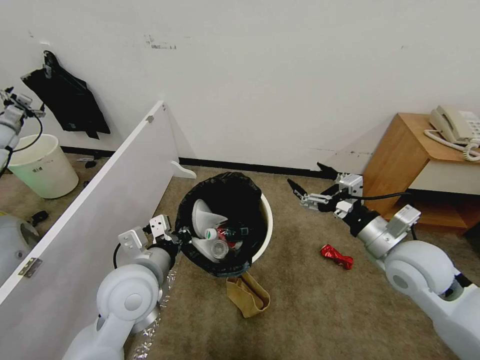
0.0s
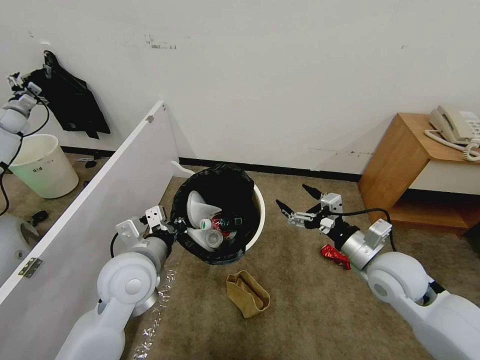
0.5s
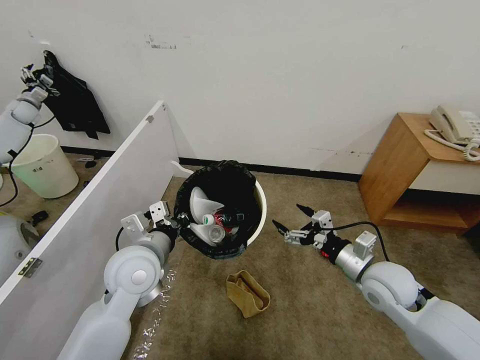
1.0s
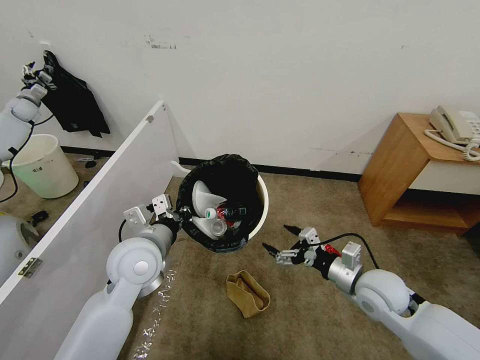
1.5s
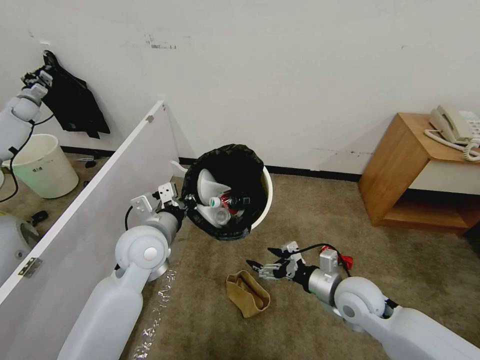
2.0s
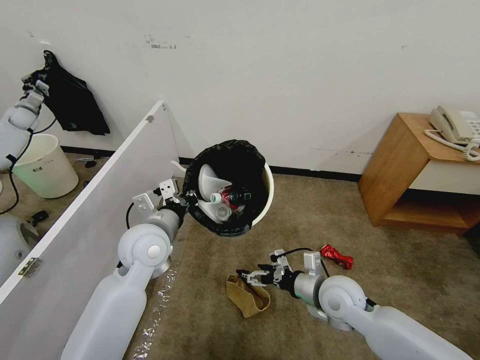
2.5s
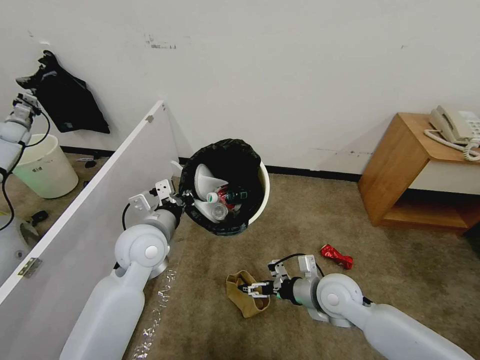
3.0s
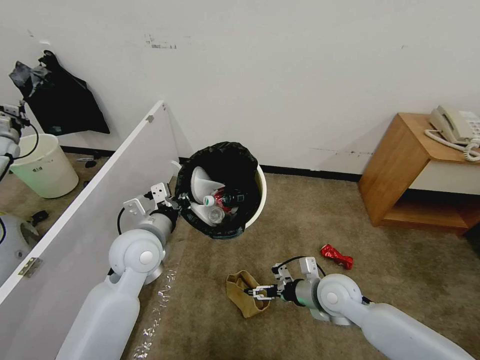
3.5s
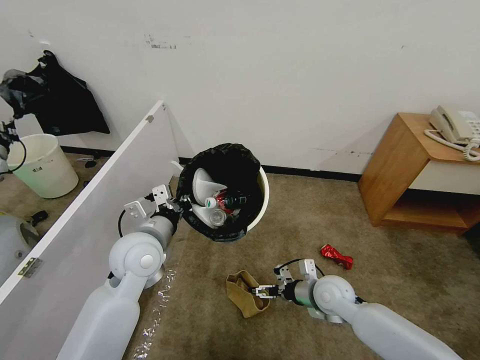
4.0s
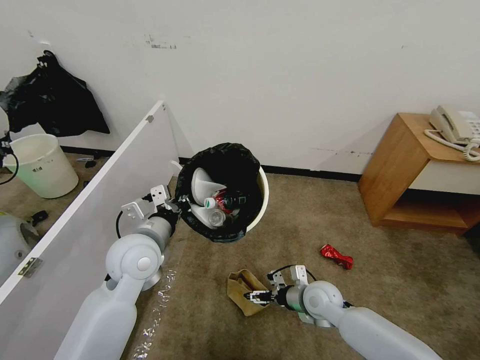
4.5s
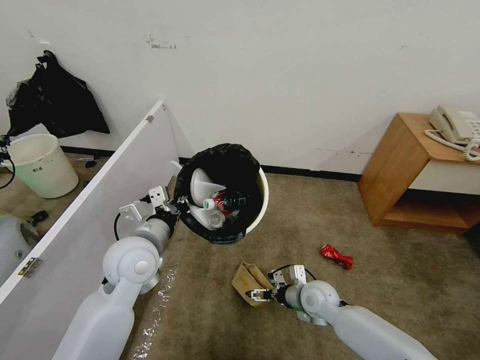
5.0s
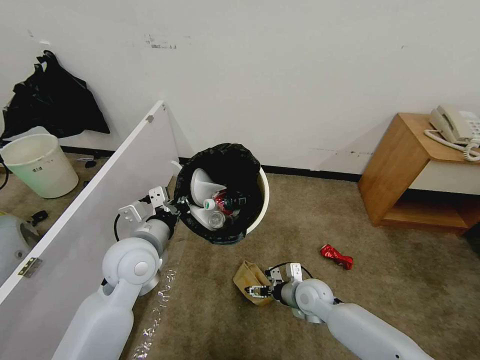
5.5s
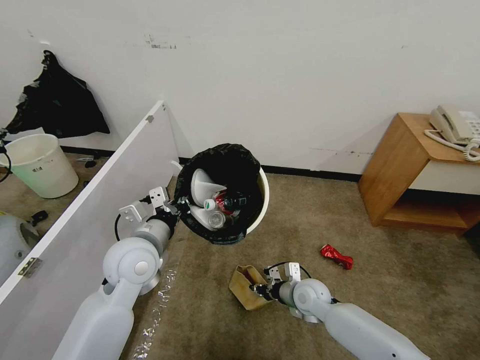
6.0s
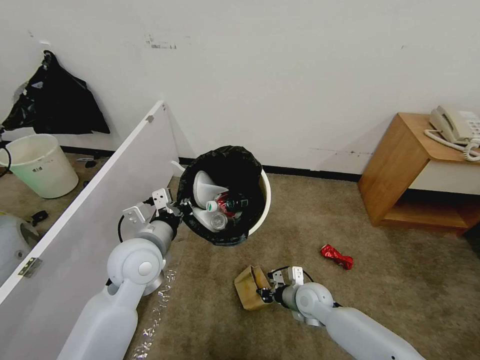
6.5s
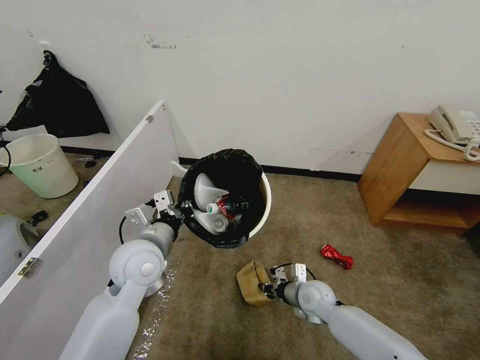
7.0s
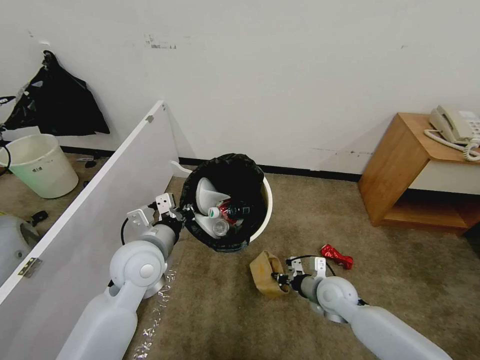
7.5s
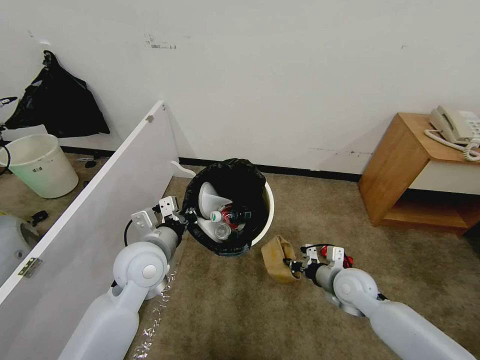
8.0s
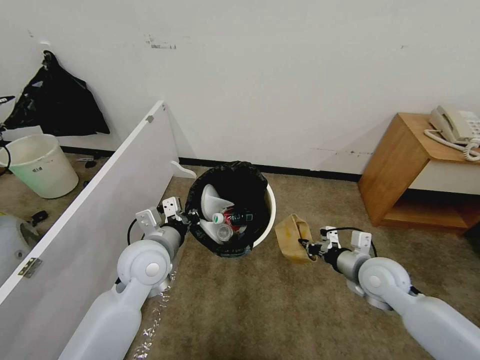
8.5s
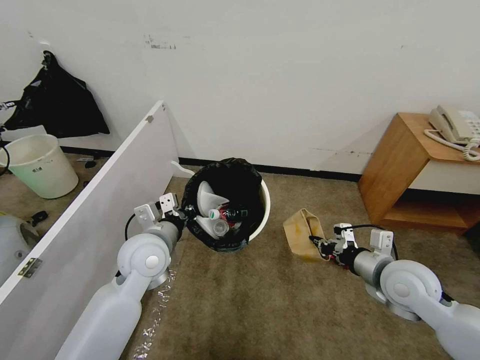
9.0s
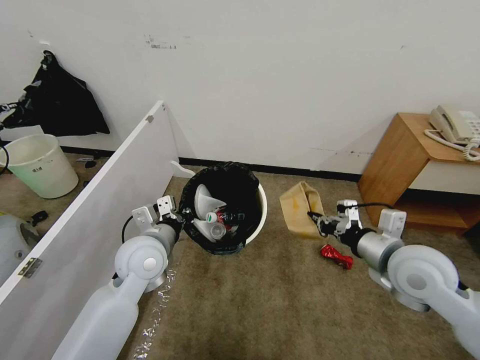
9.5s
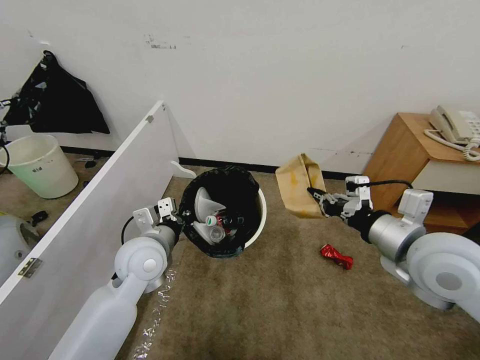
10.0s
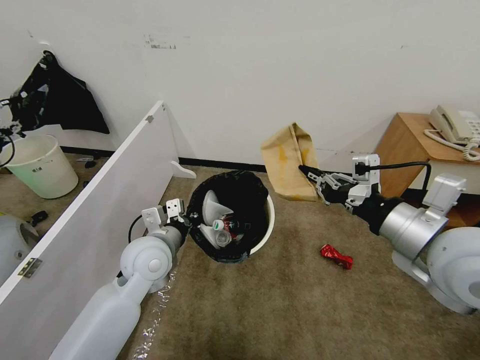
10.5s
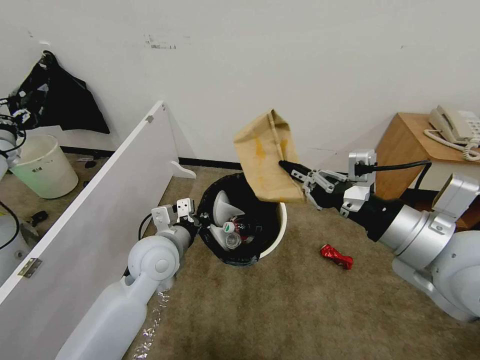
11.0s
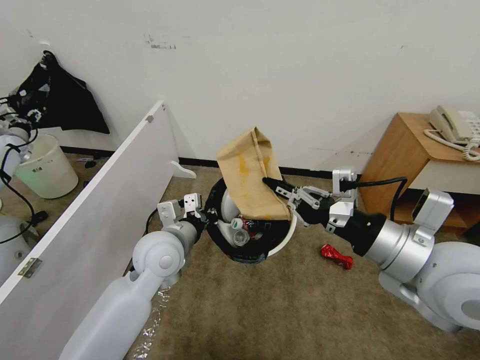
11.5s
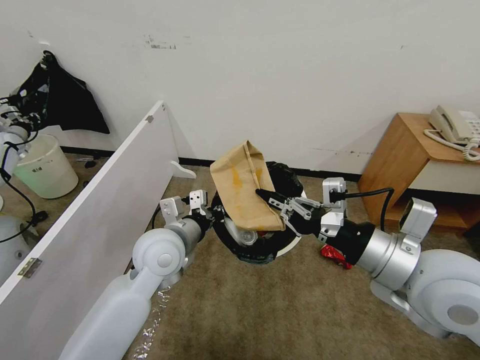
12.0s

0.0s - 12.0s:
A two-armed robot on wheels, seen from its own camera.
Task of the whole recording: Pick up the trash bin, then pick up the garbage from the floor and place it into the trash bin.
0.0s - 2.0s: The left gripper heads forward, covering some 10 cm. The right gripper goes approximately 15 cm downward.
2.0s - 4.0s: The right gripper moves downward, roughly 5 cm.
4.0s - 6.0s: The right gripper goes approximately 5 cm downward, and closes up.
6.0s - 8.0s: The right gripper moves to the right and upward, about 10 cm.
8.0s - 10.0s: The right gripper goes about 25 cm upward.
10.0s - 12.0s: The left gripper shifts by approximately 5 cm. The right gripper changes place by roughly 5 cm.

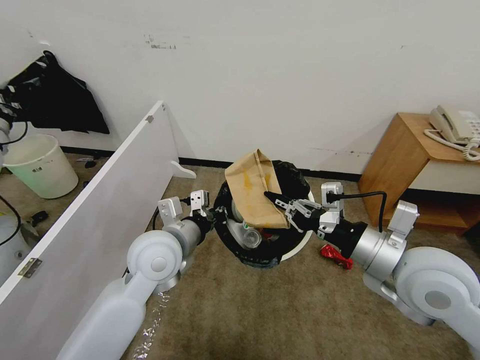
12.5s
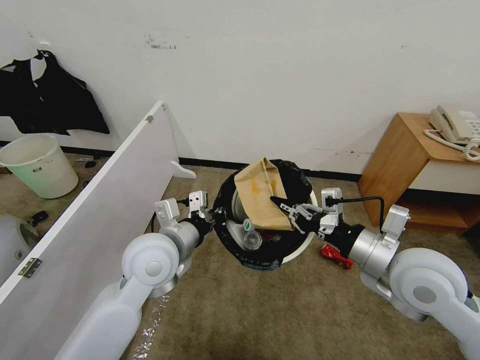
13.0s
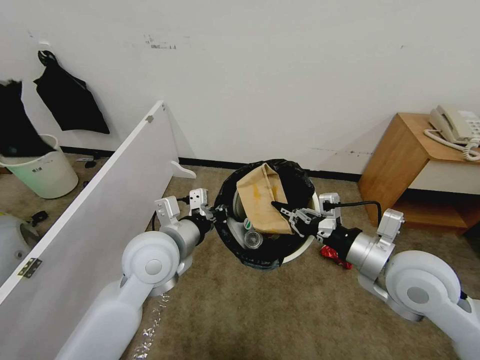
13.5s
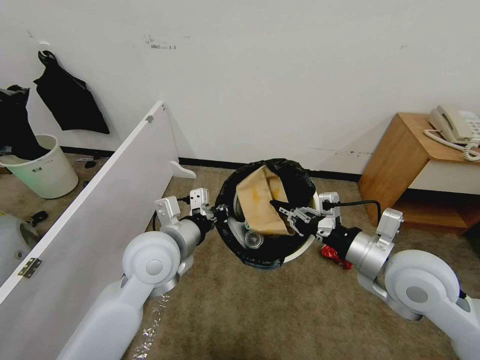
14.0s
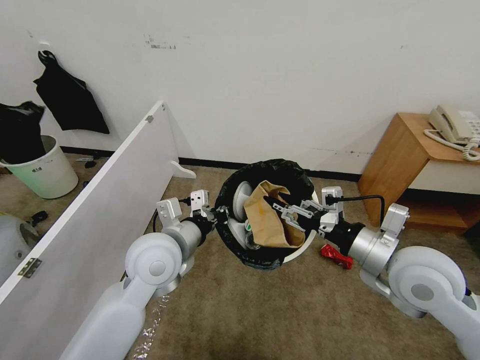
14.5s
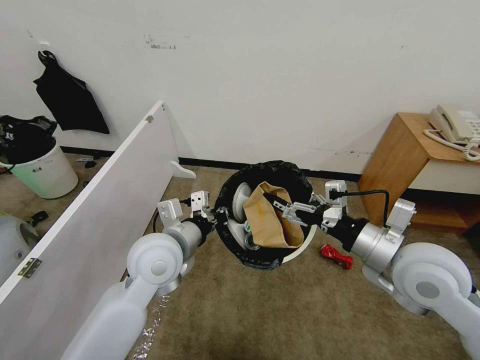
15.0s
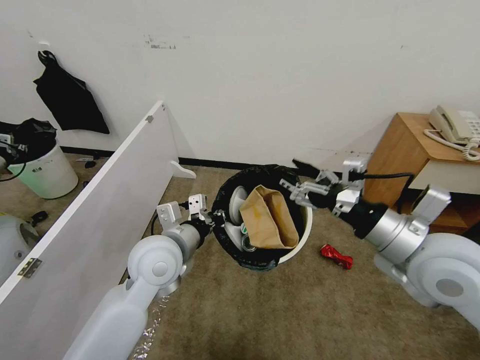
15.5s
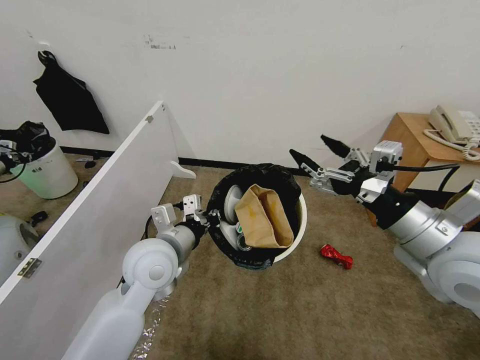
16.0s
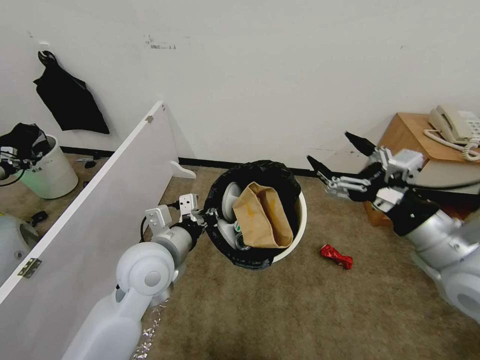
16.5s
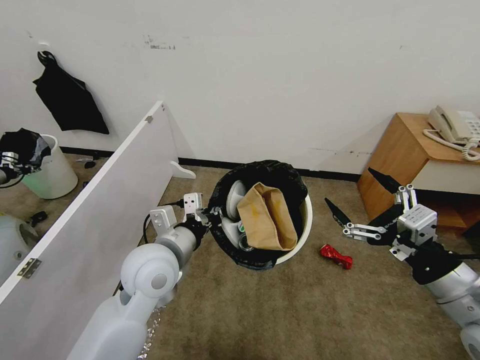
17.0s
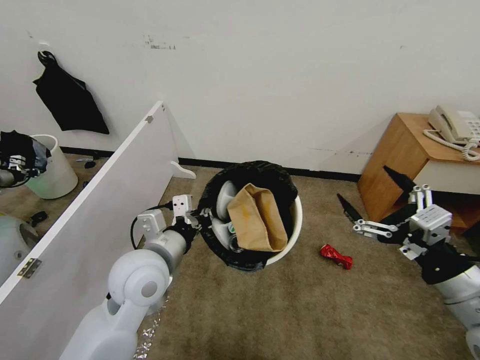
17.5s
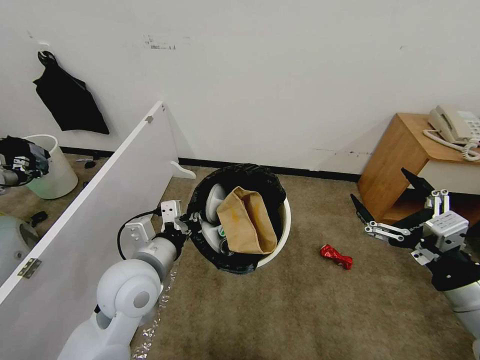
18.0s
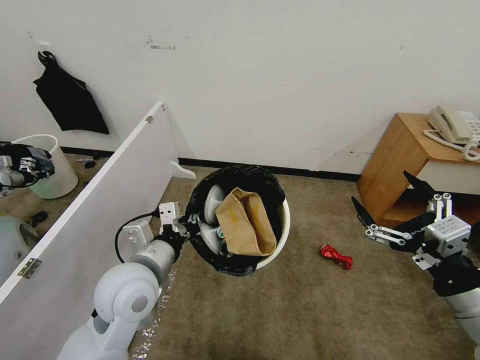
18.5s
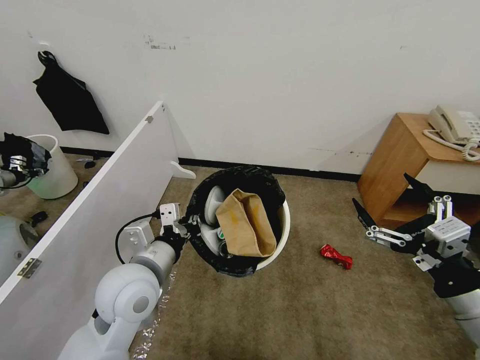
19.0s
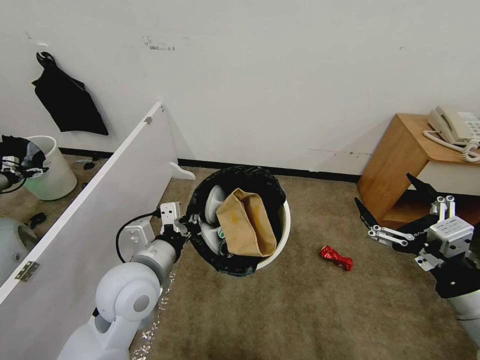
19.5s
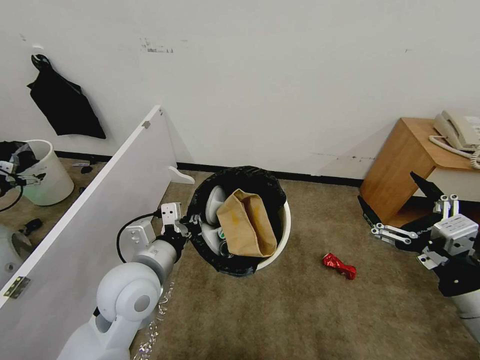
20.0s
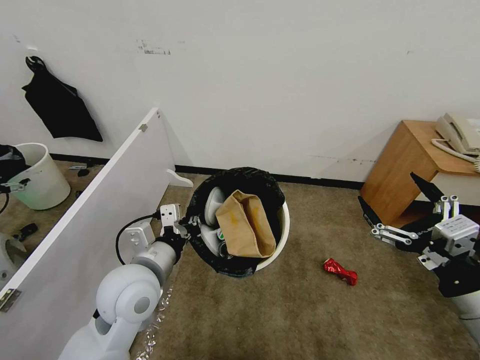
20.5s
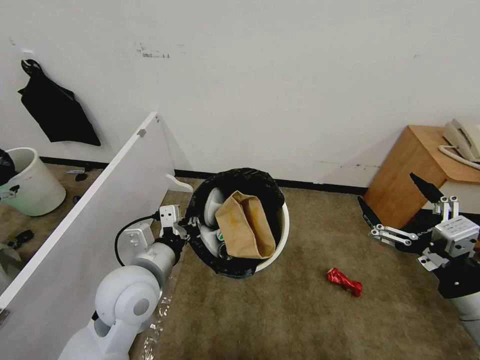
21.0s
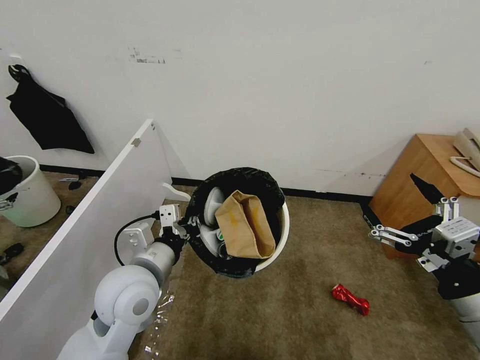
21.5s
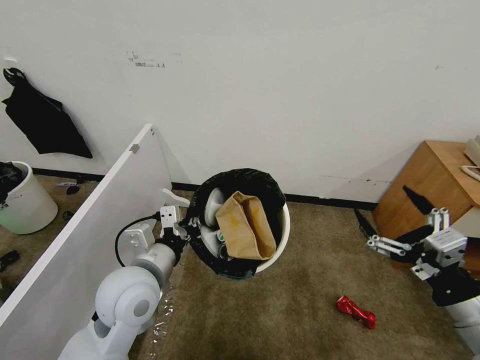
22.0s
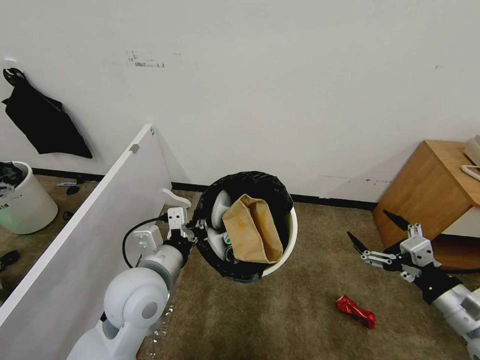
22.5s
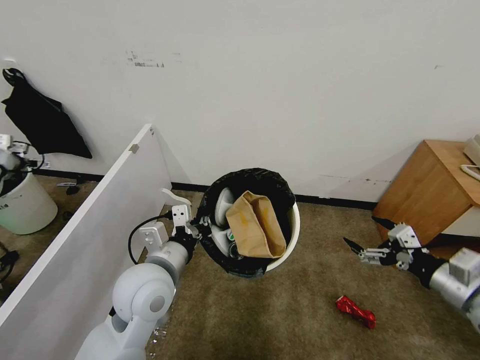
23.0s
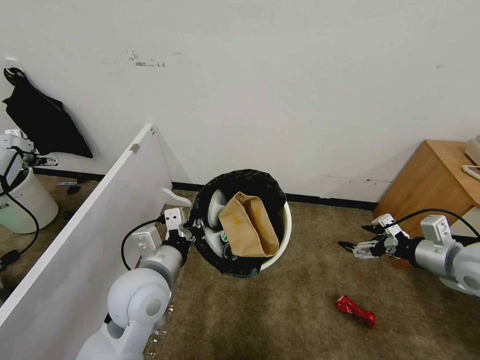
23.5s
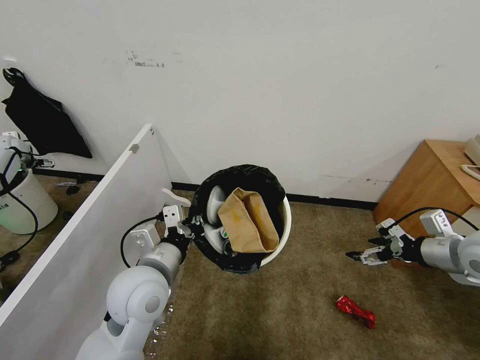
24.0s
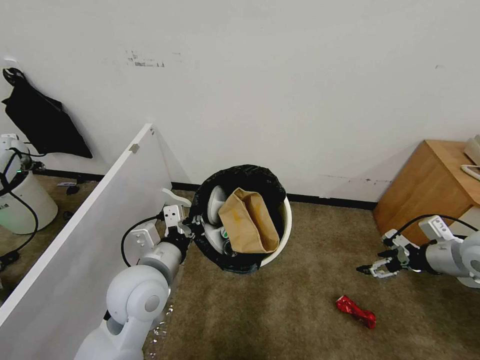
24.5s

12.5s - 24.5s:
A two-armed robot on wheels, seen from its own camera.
Task of the whole recording: Pick up the trash bin, then pick up the garbage from the floor and place it into the trash bin.
12.5s - 14.5s: The right gripper opens up.
14.5s - 16.5s: The right gripper travels upward by roughly 5 cm, and opens its fingers.
16.5s - 18.5s: The right gripper goes some 10 cm backward and downward.
18.5s - 20.5s: Both grippers stay about where they are.
20.5s - 22.5s: The right gripper goes about 5 cm downward.
22.5s - 24.5s: The right gripper is displaced forward and to the right by roughly 15 cm.

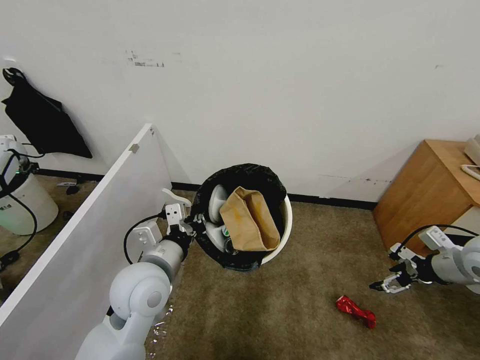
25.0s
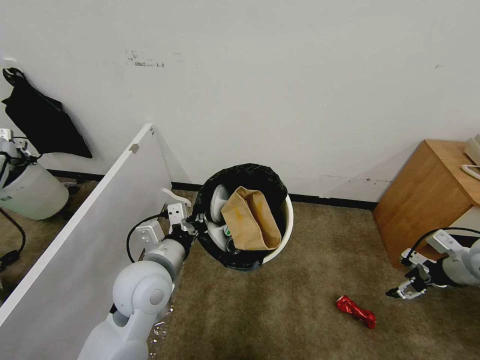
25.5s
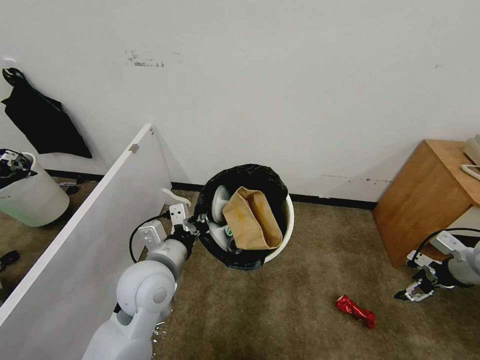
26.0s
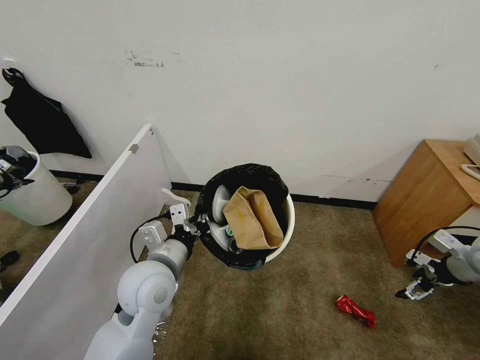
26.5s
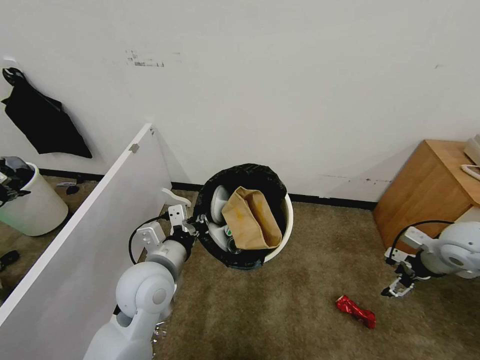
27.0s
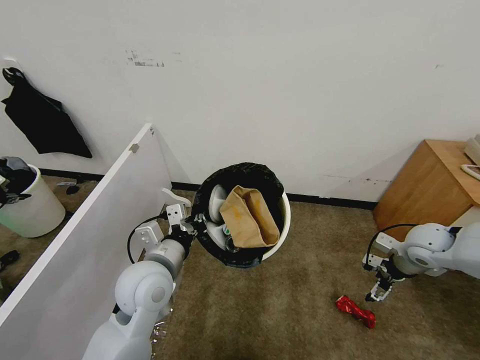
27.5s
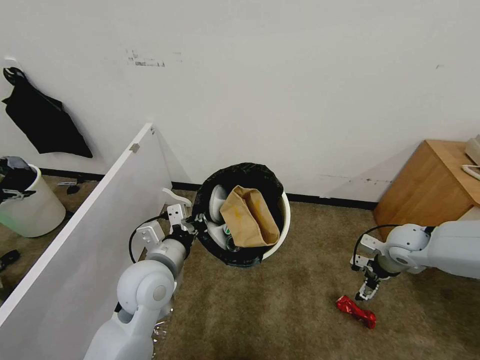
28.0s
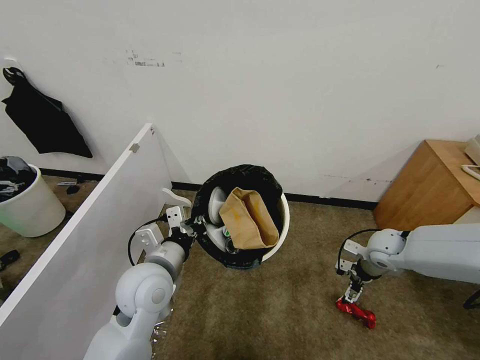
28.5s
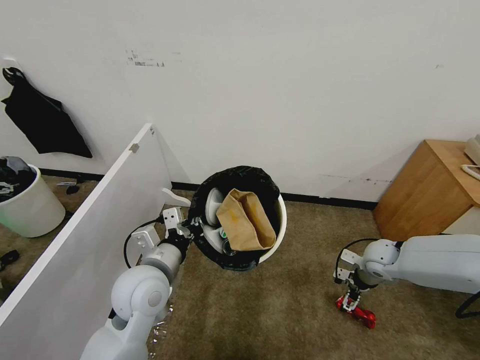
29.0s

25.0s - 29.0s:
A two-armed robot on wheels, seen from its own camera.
Task of the whole recording: Pick up the trash bin, then pick up the garbage from the floor and place it into the trash bin.
25.0s - 27.0s: The right gripper ends up about 5 cm from where it was.
27.0s - 29.0s: The right gripper shifts about 20 cm downward and to the left.
